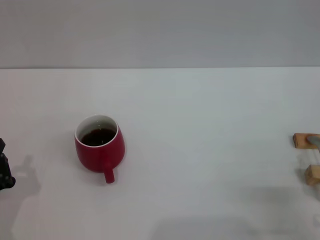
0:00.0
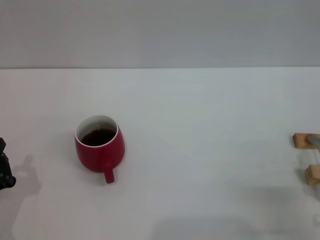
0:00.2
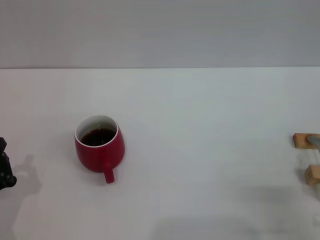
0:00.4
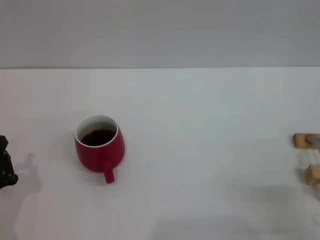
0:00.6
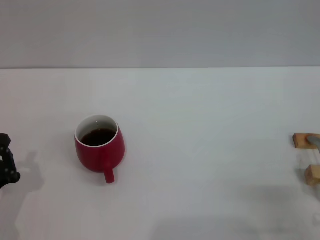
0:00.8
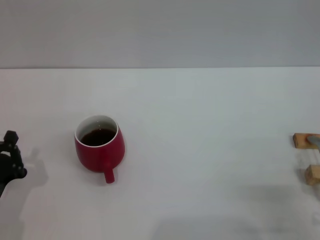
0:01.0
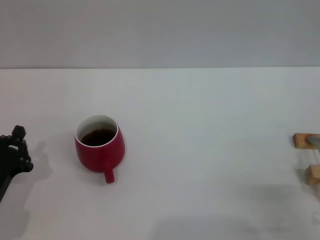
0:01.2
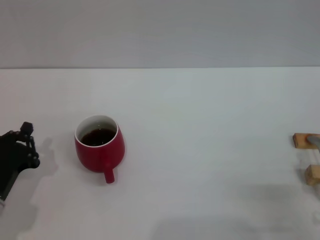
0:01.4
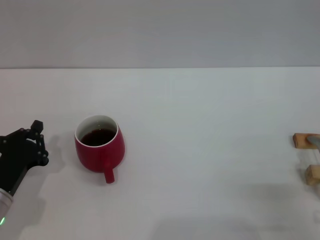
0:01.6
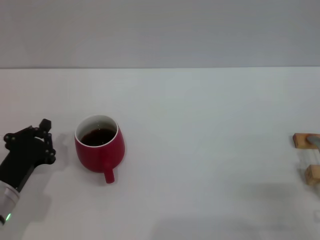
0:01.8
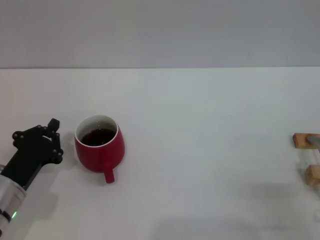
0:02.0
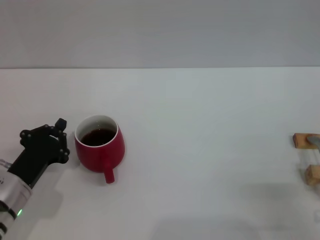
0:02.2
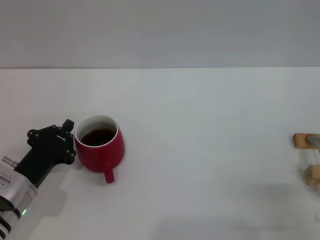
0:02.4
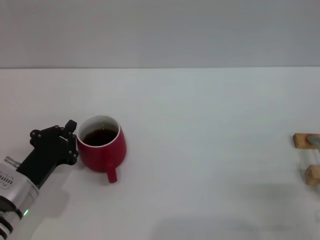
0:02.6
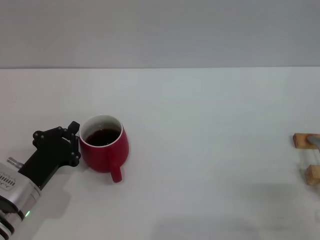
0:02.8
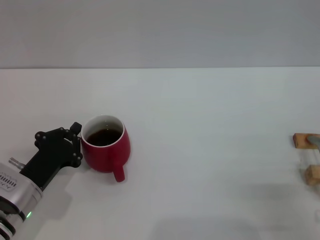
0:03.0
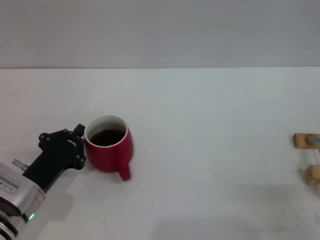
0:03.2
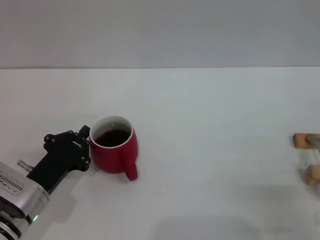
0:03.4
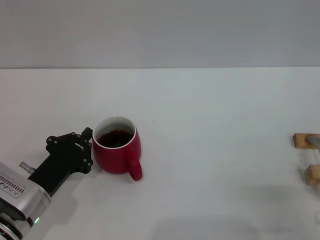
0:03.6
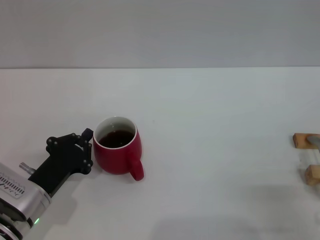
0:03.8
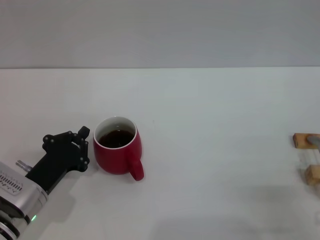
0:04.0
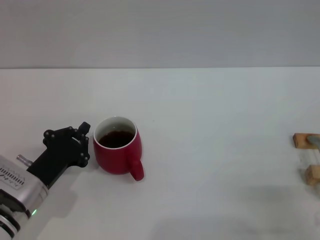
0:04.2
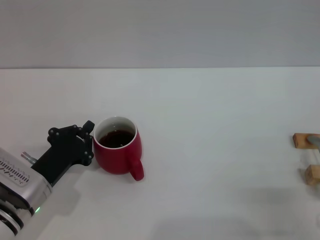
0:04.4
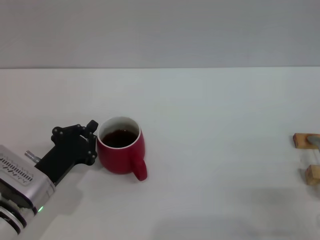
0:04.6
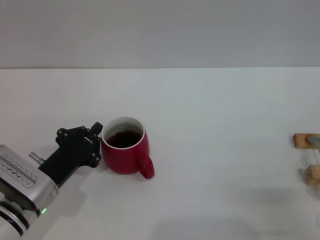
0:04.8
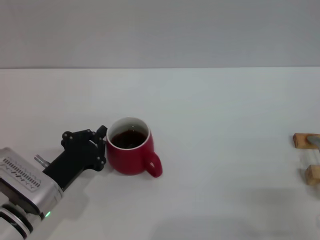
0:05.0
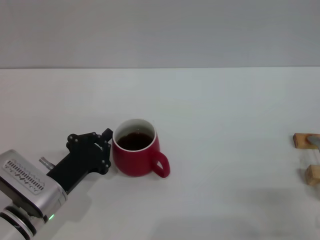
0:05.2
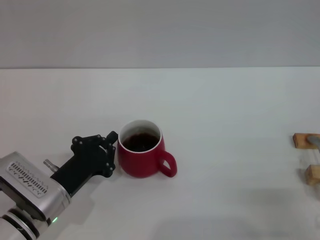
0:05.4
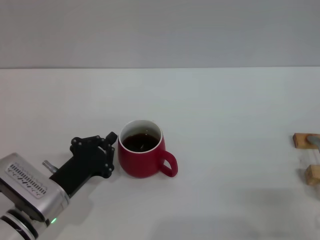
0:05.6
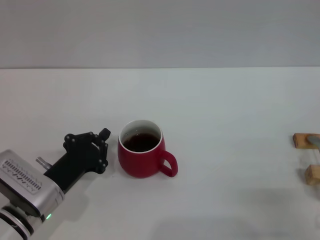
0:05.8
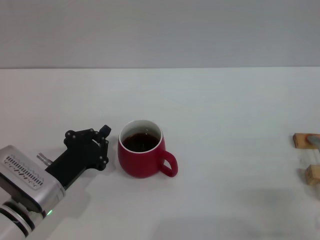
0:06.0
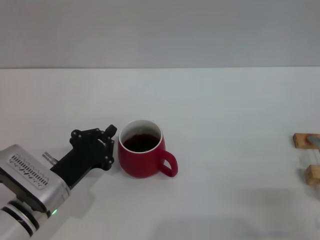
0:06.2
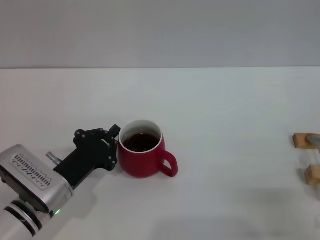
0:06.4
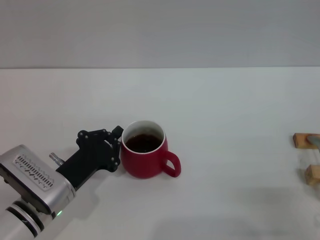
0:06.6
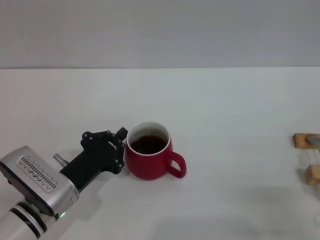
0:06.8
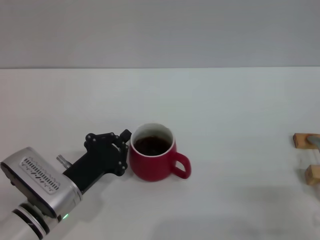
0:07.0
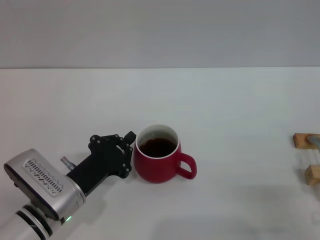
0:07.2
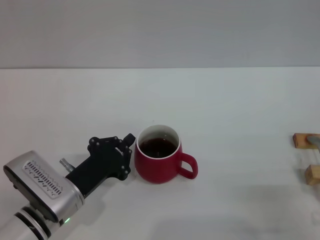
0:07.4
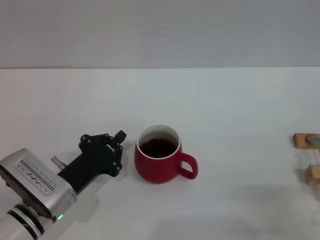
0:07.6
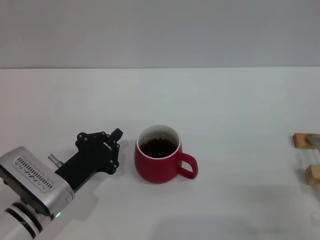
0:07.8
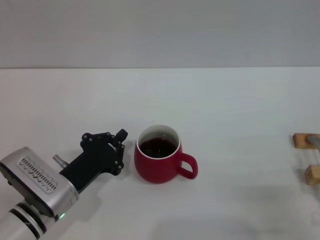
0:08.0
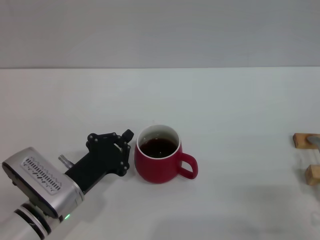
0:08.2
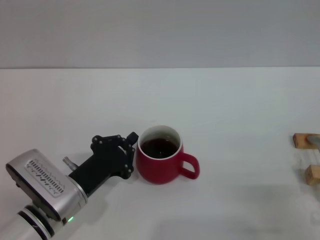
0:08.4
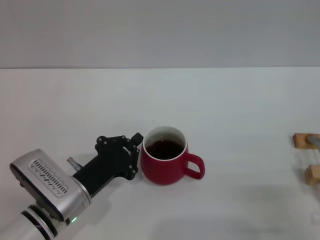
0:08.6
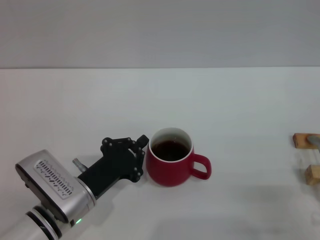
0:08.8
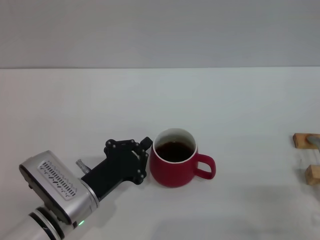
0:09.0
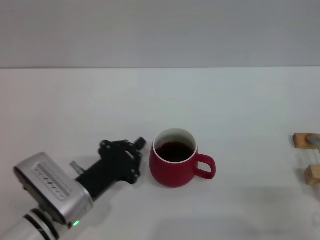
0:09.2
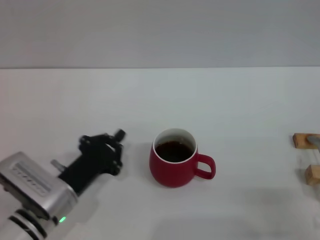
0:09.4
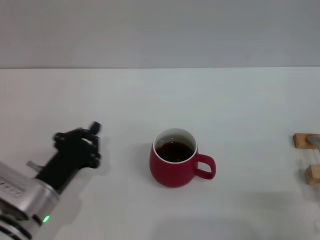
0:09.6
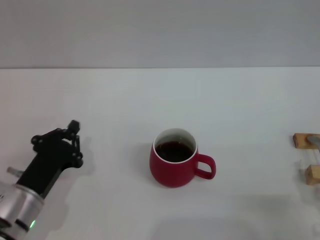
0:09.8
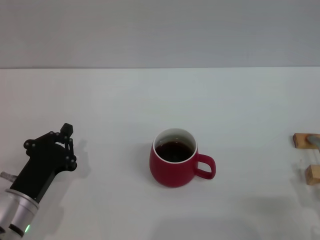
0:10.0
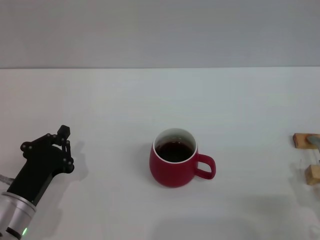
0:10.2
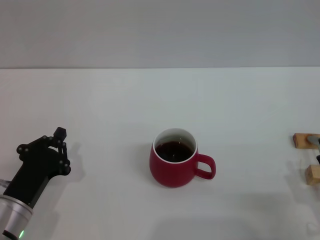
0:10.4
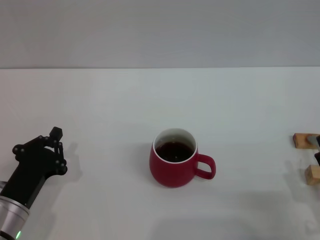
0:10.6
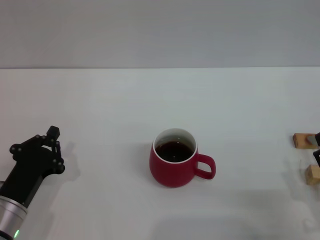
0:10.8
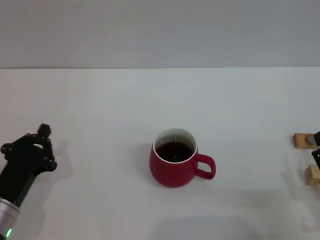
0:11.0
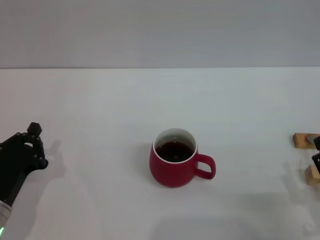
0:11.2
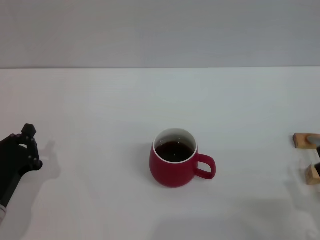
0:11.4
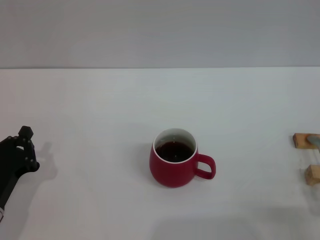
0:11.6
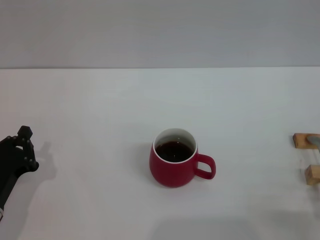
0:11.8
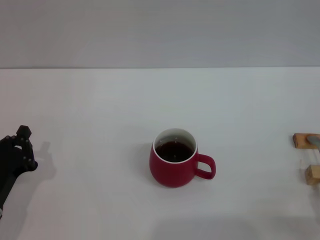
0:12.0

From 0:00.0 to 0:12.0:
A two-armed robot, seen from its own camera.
Task of the whole recording: Move the red cup to the center, lift the pink spoon, stir it three times in the cup, and put the spoon into the cup.
Step, from 0:00.0 to 0:09.2: Move the cup with coffee to the center of view with the left gripper.
From 0:00.0 to 0:01.6: The left gripper goes approximately 5 cm forward.
From 0:01.6 to 0:03.0: The grippers move only a little.
From 0:03.0 to 0:04.4: Both grippers stay about where they are.
From 0:04.4 to 0:09.0: The grippers stay close to where they were, moving slightly.
From 0:09.0 to 0:10.4: The left gripper moves to the left, about 5 cm.
From 0:10.4 to 0:12.0: The grippers make only small movements.

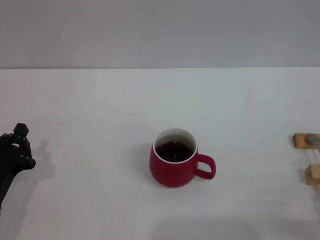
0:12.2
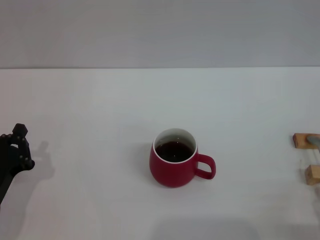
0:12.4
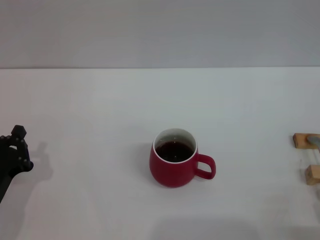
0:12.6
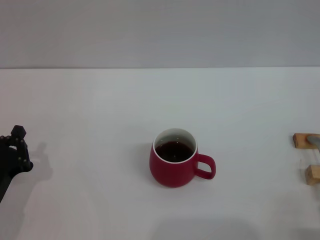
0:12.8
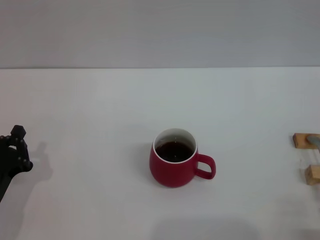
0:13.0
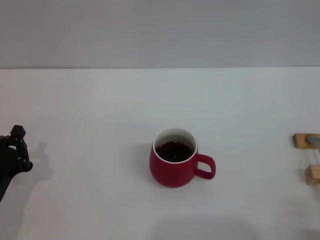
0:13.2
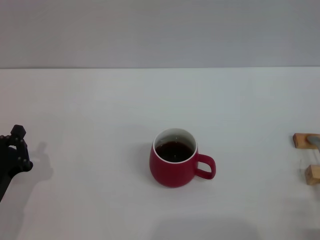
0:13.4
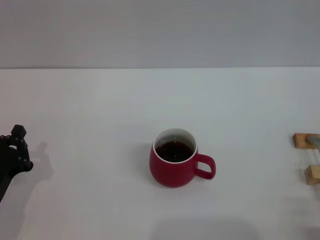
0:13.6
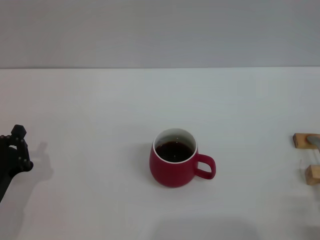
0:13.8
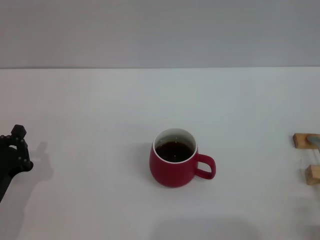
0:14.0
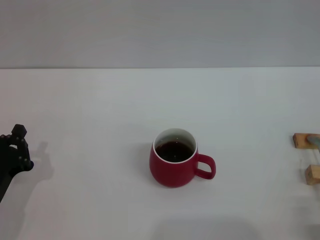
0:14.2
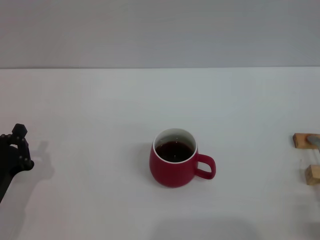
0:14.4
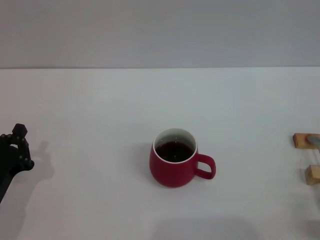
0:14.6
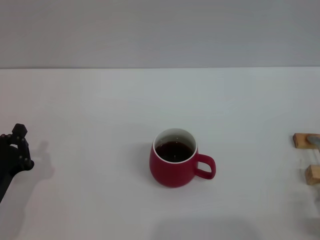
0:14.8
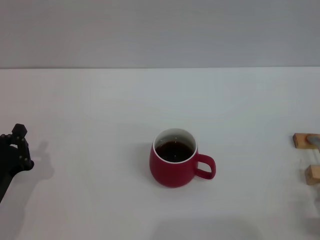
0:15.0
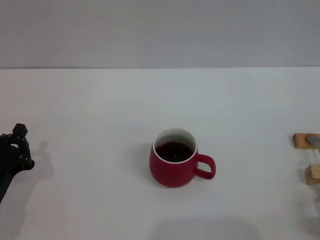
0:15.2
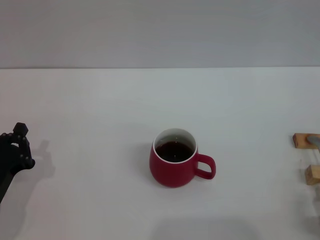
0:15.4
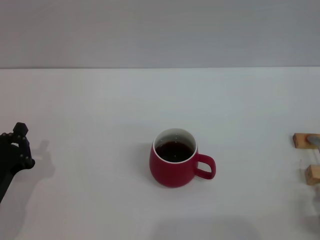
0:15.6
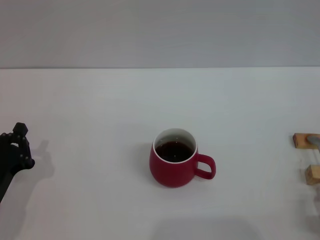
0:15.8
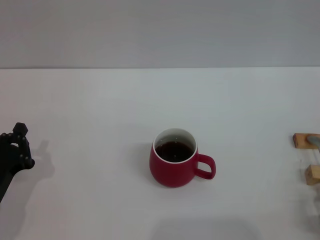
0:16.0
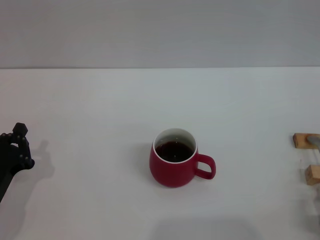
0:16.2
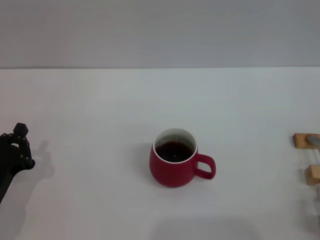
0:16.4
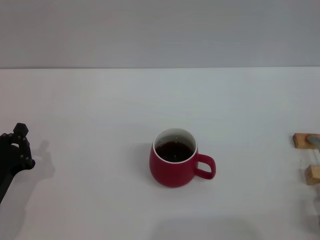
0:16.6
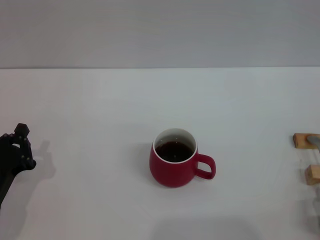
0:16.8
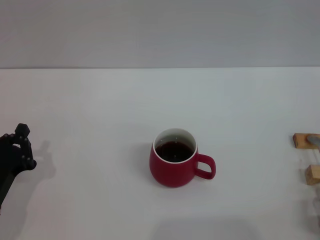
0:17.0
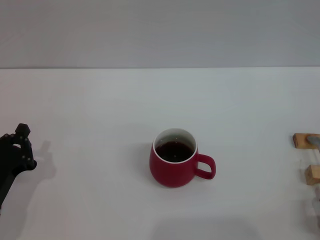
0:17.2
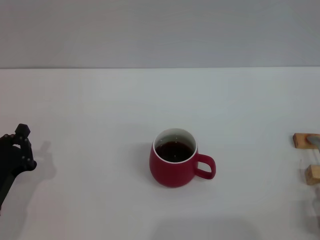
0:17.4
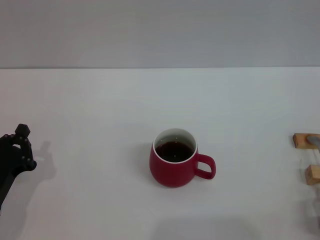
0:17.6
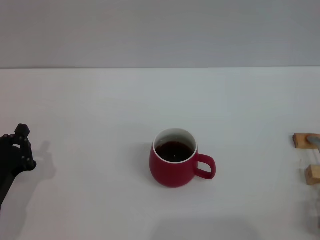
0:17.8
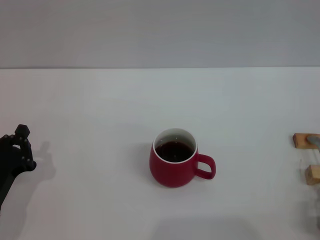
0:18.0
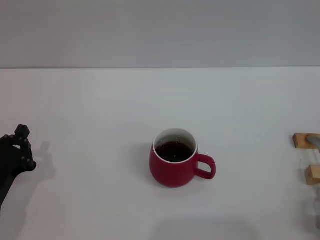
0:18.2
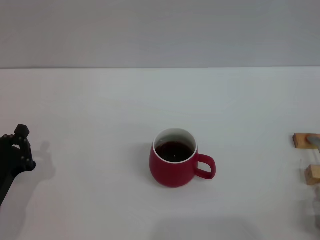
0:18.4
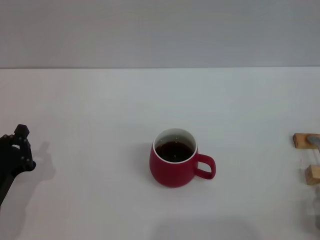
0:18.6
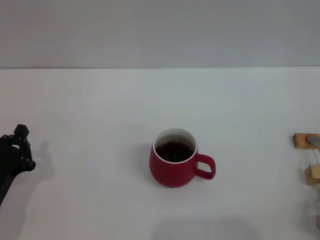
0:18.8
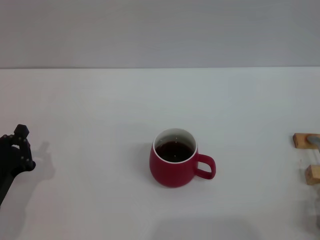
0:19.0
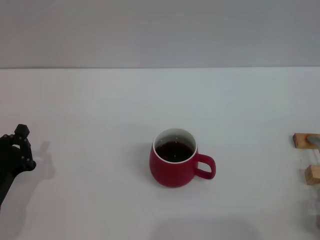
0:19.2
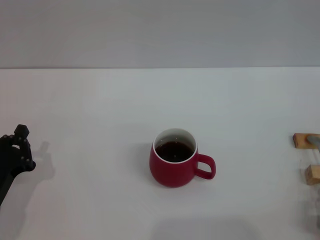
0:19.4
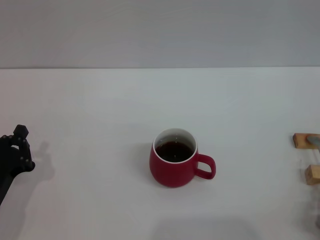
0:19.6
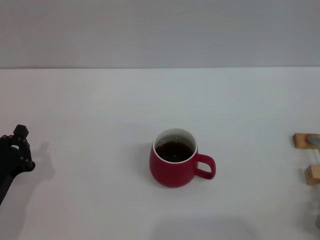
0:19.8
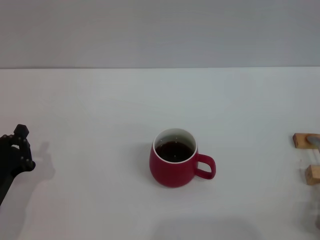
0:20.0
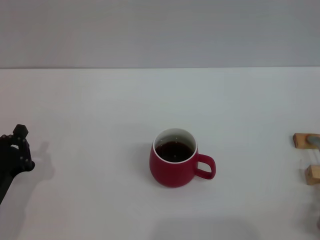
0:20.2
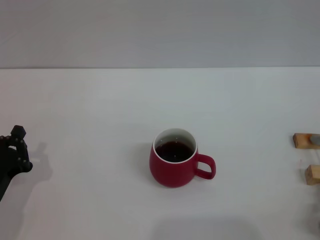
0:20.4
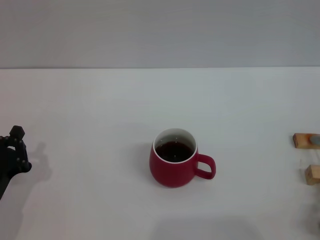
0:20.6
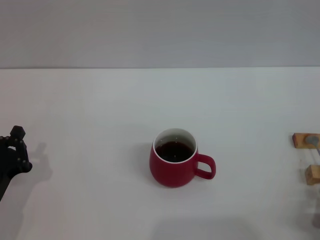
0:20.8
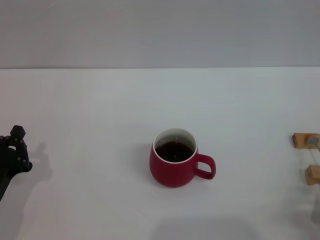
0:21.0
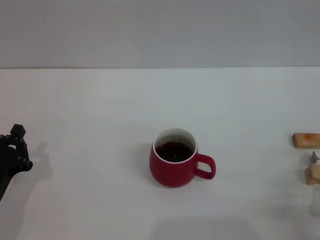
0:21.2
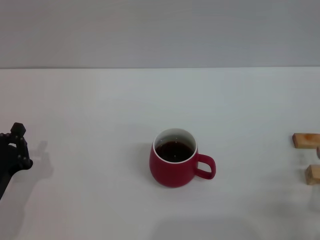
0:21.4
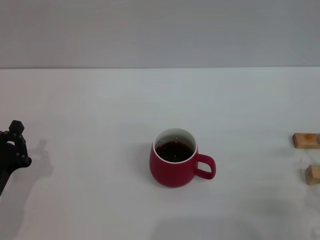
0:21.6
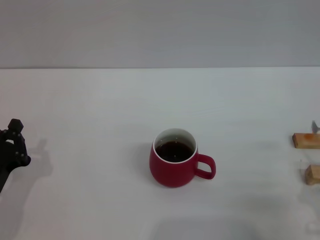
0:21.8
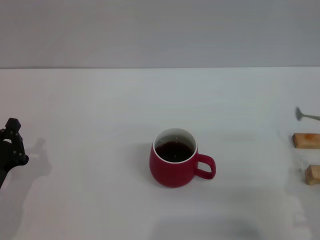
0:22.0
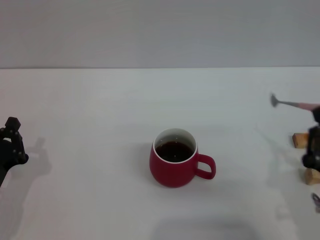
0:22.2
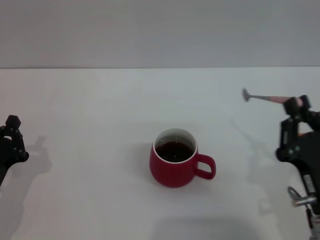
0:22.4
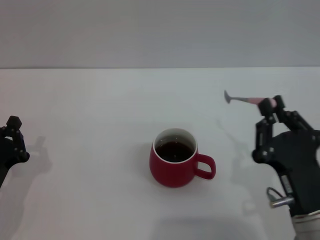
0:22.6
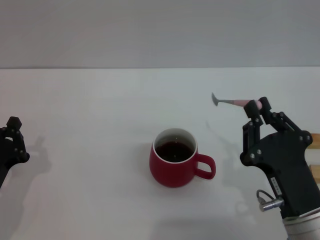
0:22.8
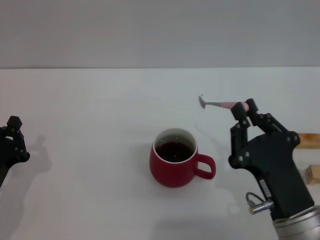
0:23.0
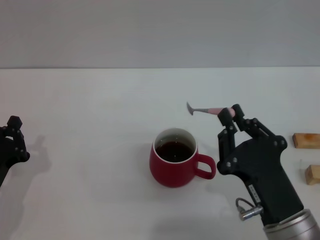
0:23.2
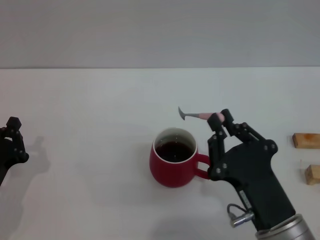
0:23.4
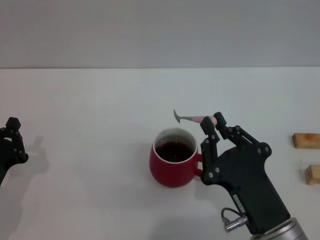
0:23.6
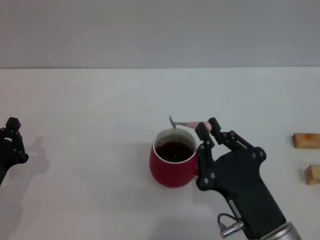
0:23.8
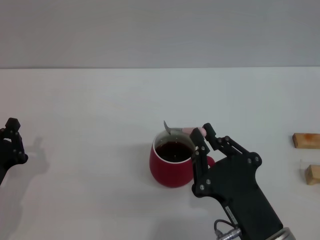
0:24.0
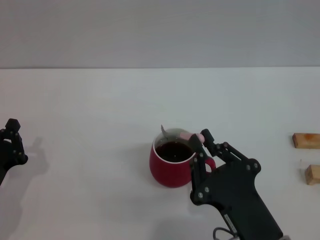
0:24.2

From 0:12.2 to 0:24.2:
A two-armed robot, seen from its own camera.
Task of the whole recording: Move the red cup to the center, lift the pink spoon, stir it three times in the cup, and put the spoon into the cup.
From 0:15.2 to 0:19.8: Both grippers stay put.
From 0:19.8 to 0:21.2: The grippers make only small movements.
From 0:21.2 to 0:22.6: The right gripper shifts approximately 10 cm to the left and upward.
From 0:22.6 to 0:24.2: The right gripper heads to the left, covering approximately 5 cm.
